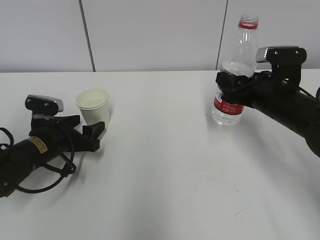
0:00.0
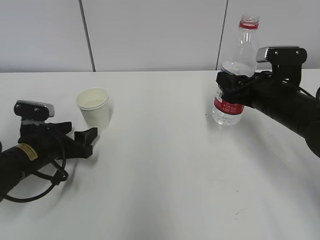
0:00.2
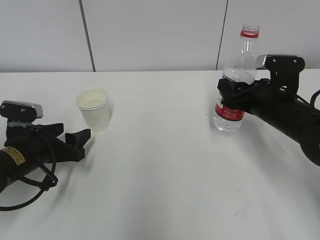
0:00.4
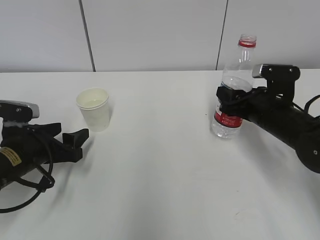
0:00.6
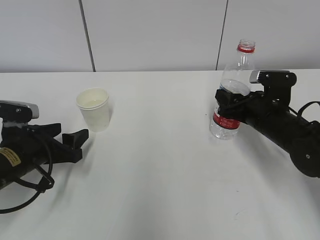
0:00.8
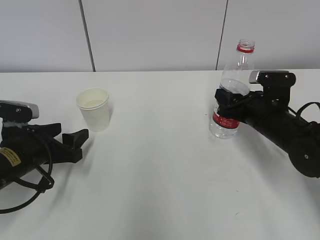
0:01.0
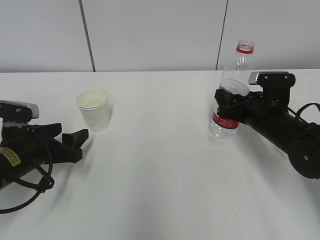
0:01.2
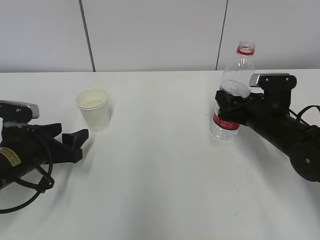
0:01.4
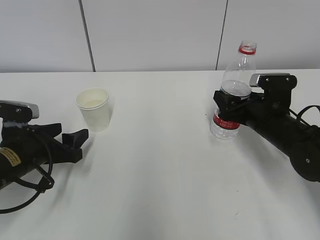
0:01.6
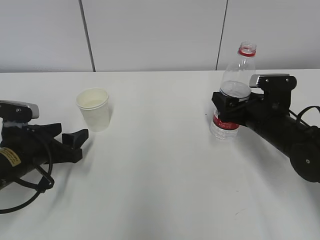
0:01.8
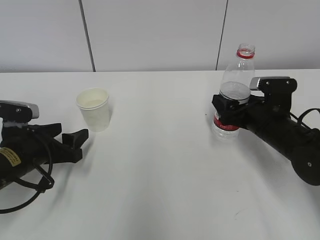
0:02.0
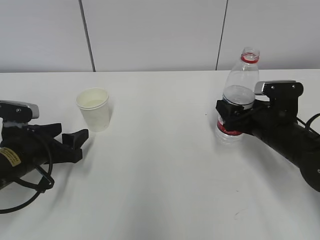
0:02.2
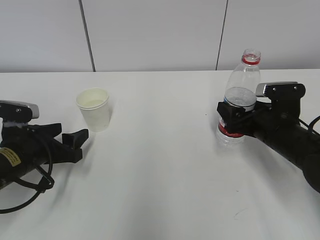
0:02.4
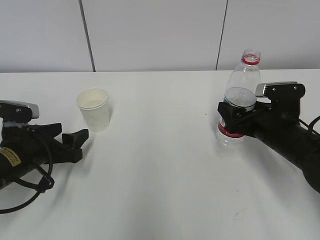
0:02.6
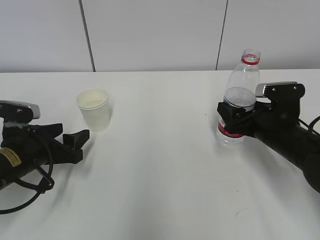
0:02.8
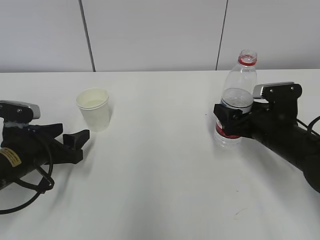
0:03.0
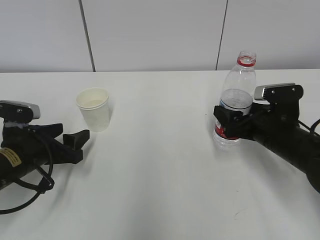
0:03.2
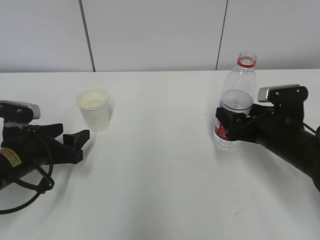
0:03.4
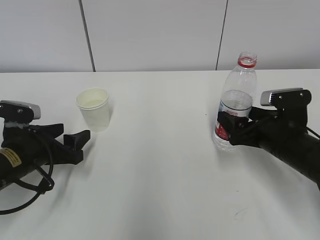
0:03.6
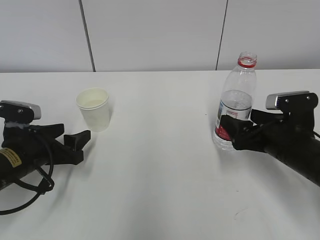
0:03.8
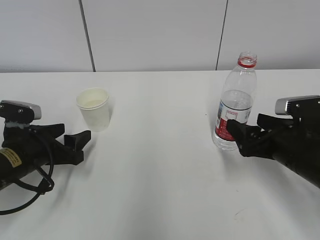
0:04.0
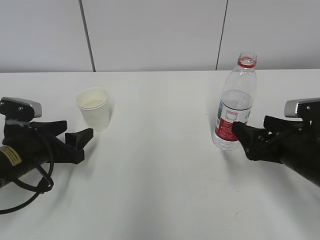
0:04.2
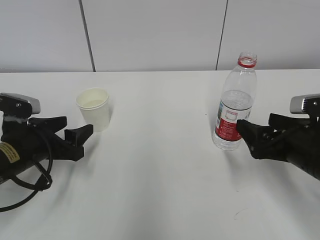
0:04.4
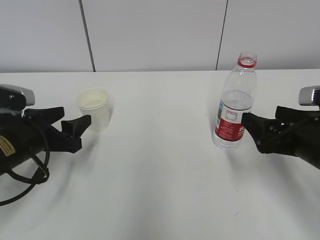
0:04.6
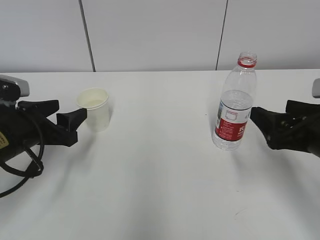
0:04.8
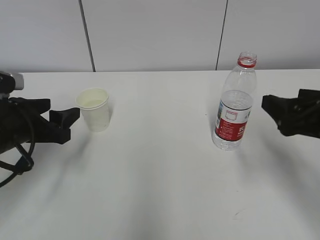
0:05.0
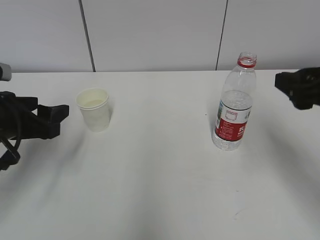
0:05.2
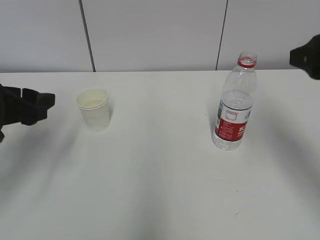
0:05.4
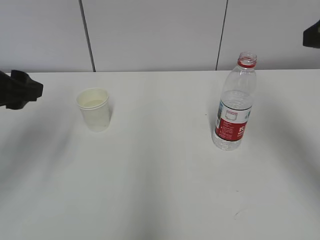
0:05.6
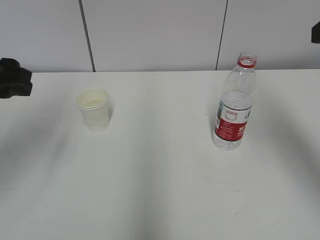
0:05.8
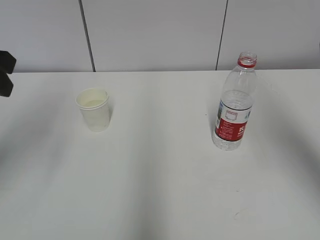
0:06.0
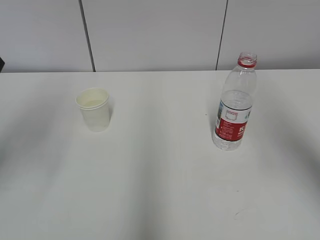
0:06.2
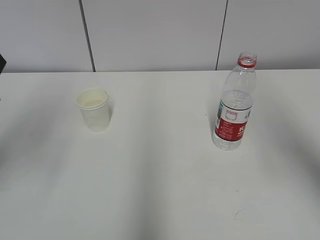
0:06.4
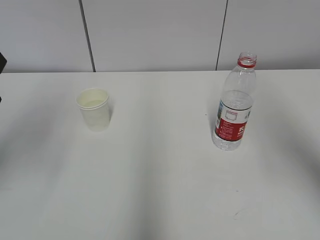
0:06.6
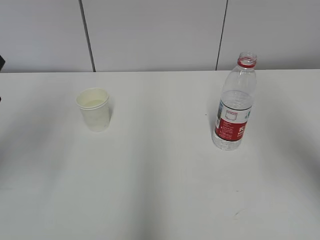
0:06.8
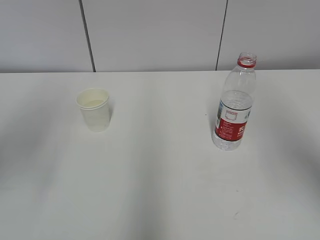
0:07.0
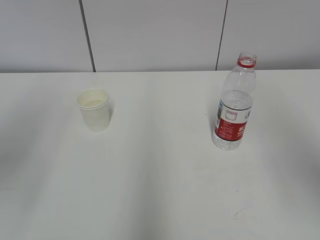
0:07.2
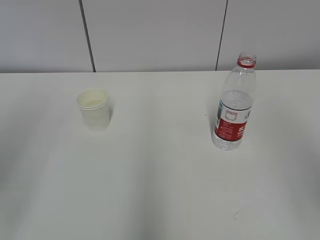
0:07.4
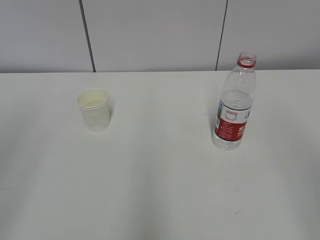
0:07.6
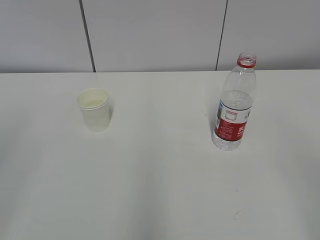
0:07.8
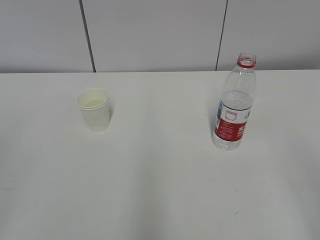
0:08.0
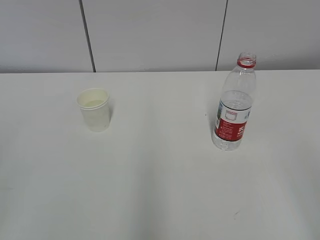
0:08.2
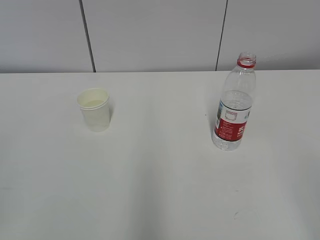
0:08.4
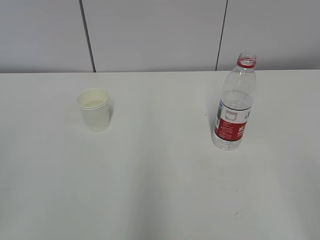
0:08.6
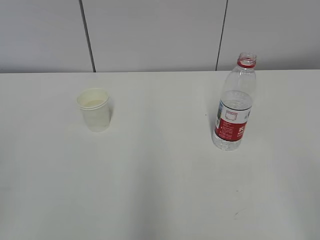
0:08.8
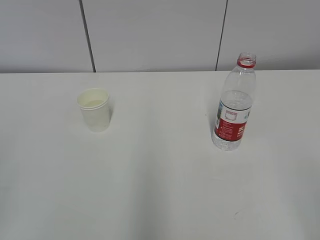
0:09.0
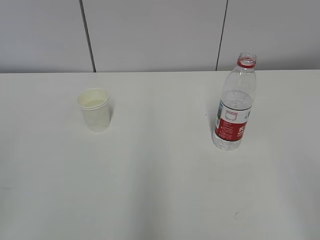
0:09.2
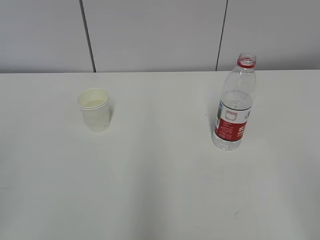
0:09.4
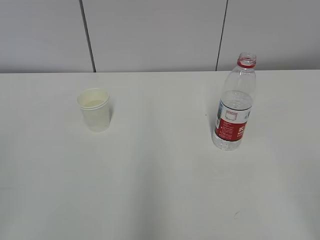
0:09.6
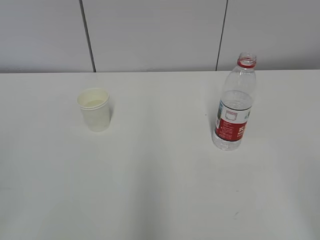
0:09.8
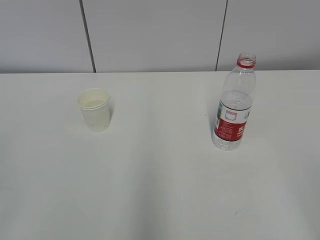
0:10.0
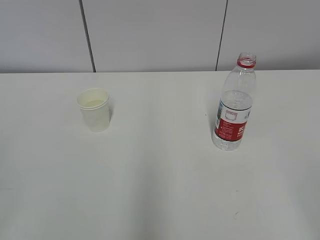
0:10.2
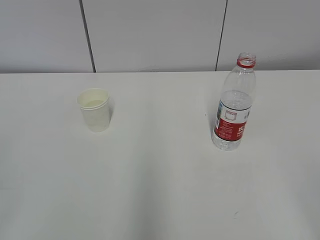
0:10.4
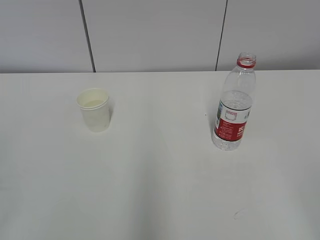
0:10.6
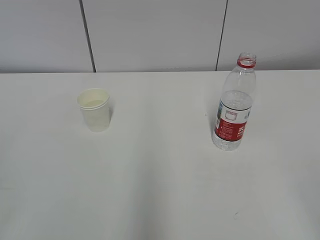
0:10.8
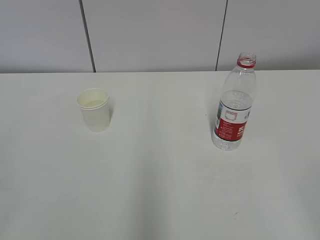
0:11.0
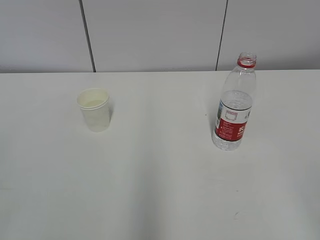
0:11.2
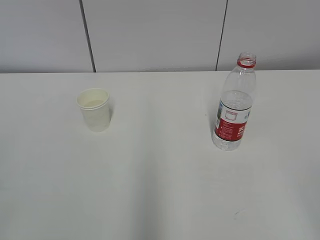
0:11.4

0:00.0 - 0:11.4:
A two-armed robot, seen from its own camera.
0:00.0 - 0:01.4: The right gripper shifts roughly 5 cm downward. The left gripper shifts approximately 5 cm backward.
0:01.4 - 0:02.8: The right gripper opens.
0:02.8 - 0:04.2: The right gripper goes approximately 10 cm backward.
0:04.2 - 0:05.6: The grippers both shift upward by approximately 20 cm.
0:05.6 - 0:07.2: The right gripper shifts roughly 10 cm backward; the left gripper goes about 15 cm upward and backward.
